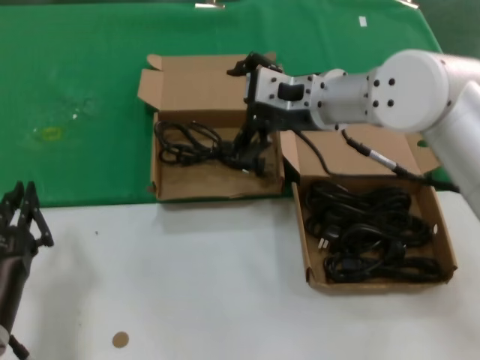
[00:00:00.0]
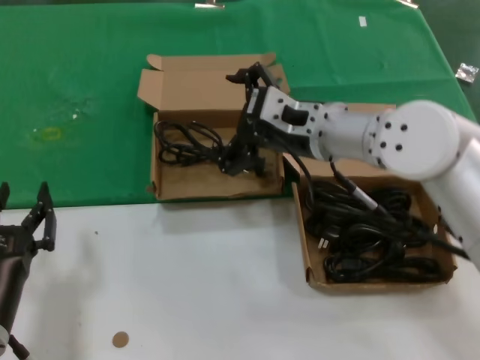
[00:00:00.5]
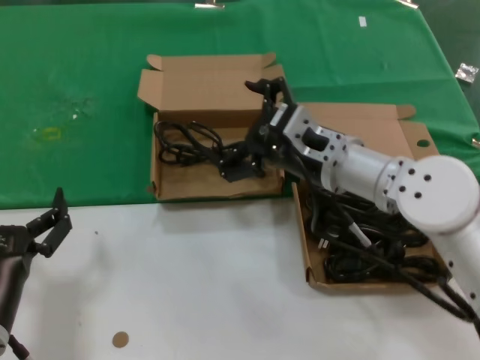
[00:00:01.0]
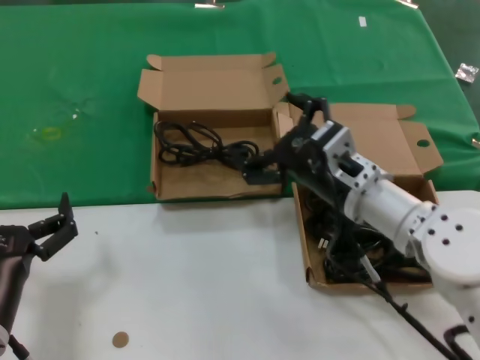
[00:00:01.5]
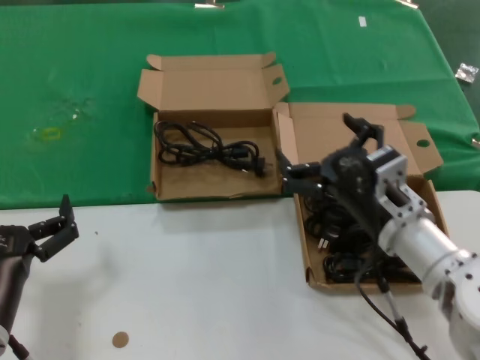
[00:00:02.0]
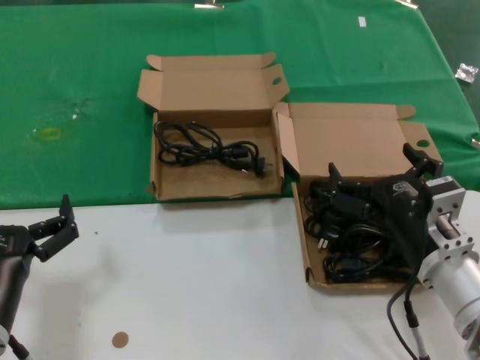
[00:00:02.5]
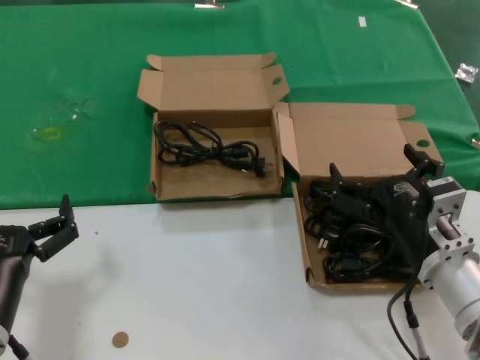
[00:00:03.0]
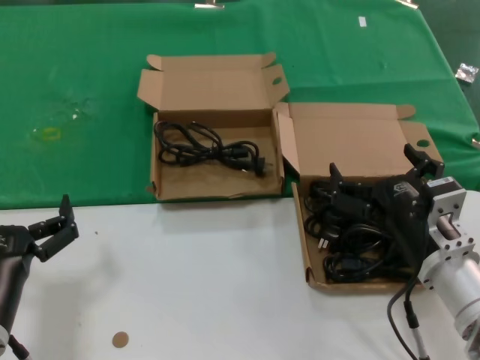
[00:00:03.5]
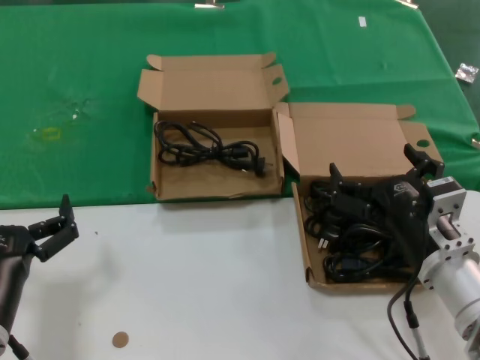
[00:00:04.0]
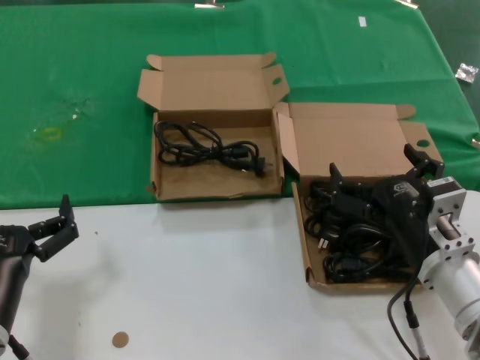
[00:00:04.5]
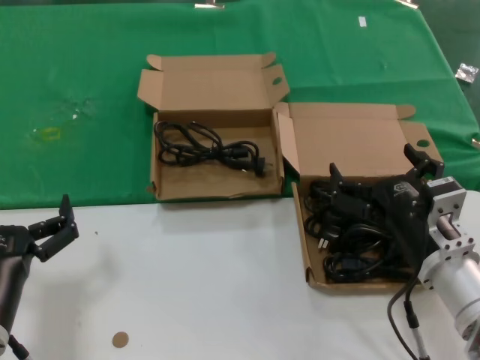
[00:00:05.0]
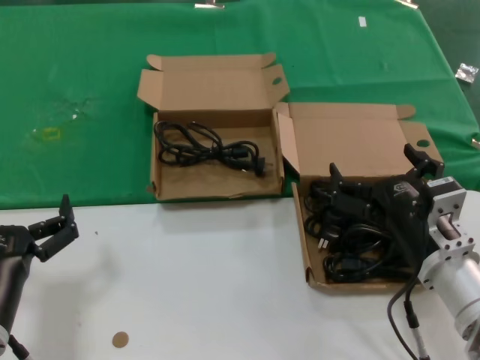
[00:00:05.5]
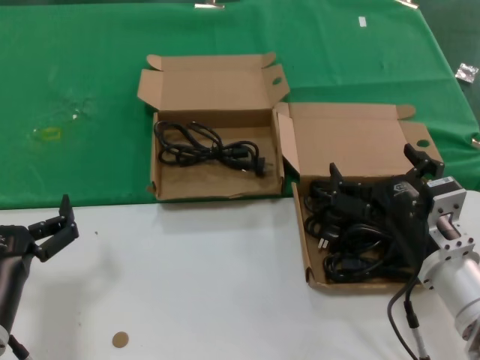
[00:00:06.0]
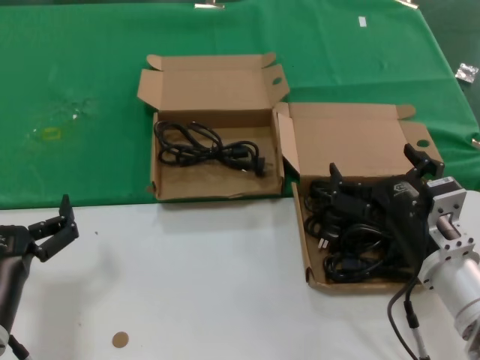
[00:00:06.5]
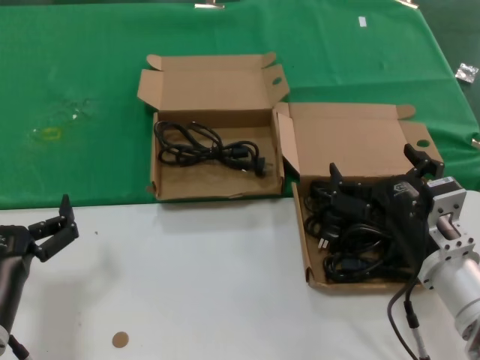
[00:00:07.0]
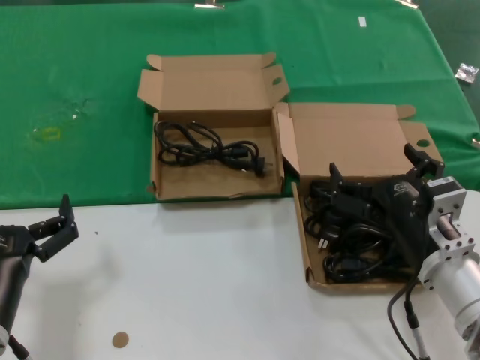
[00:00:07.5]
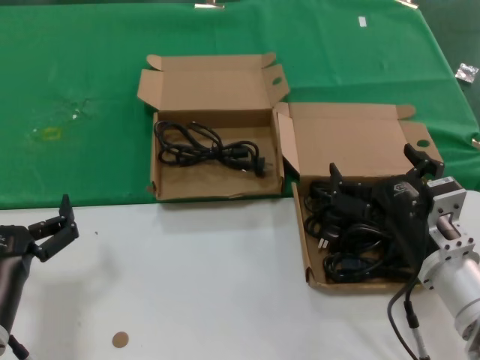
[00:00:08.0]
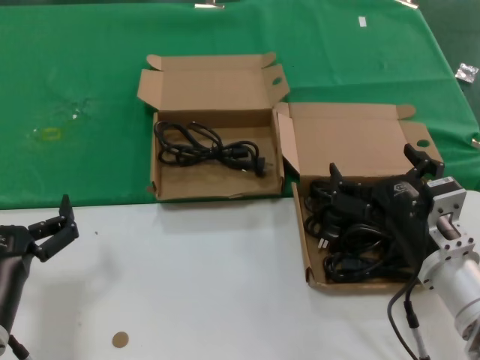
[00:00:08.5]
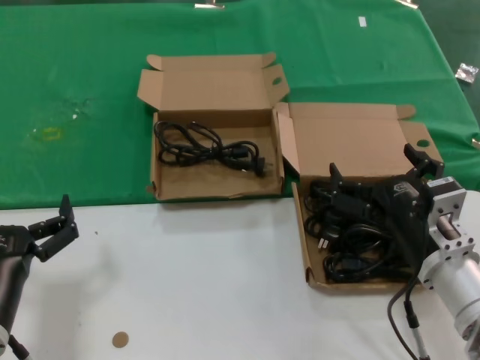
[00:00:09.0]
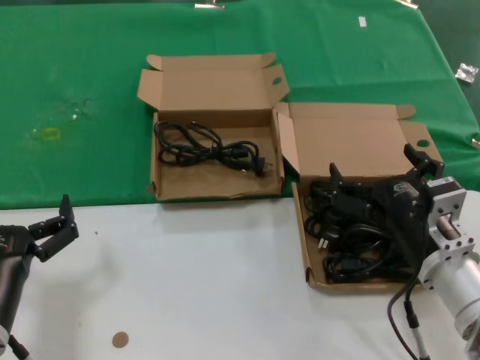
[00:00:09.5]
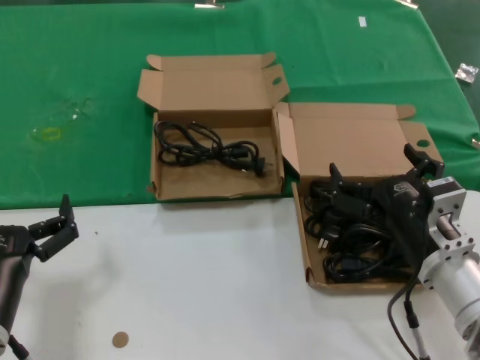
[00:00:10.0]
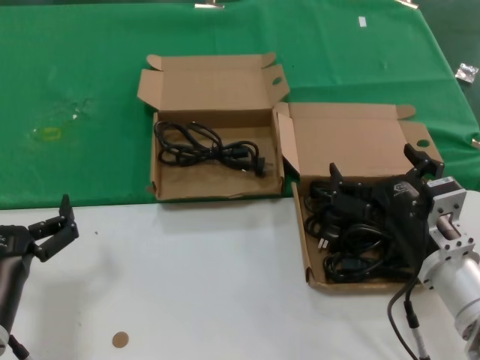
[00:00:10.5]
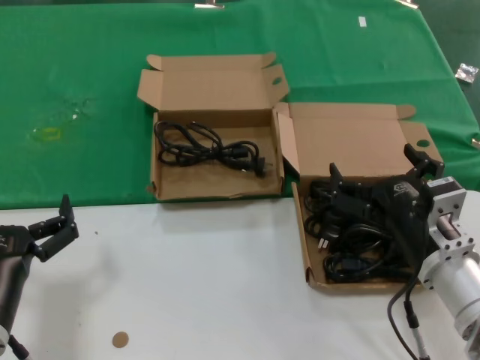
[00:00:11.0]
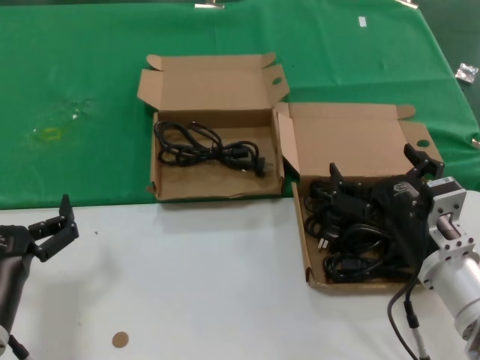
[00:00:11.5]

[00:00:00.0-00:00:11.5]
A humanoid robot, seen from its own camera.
Task of the whole recording: take the parts from the box containing them and put them into an empty box.
00:00:00.0 to 00:00:02.0: The right hand is displaced downward and backward by roughly 20 cm.
00:00:02.0 to 00:00:04.0: The right hand moves roughly 5 cm.
00:00:04.0 to 00:00:11.5: Neither hand changes place.
